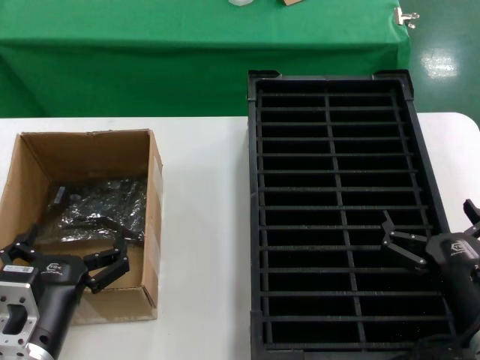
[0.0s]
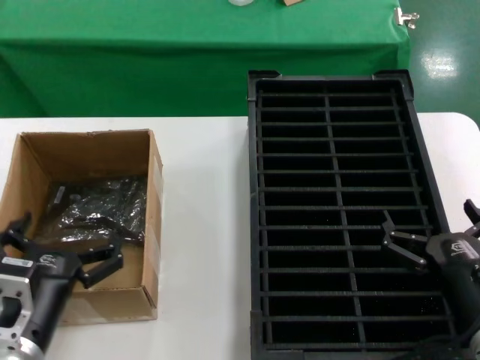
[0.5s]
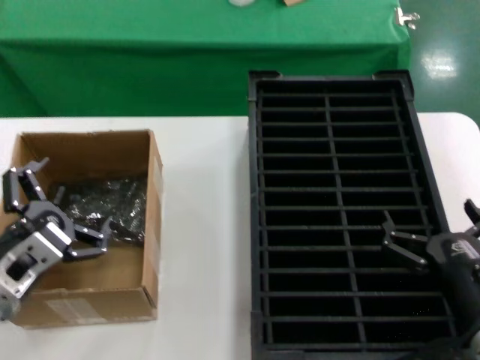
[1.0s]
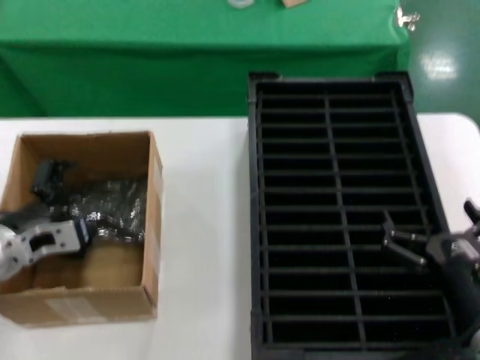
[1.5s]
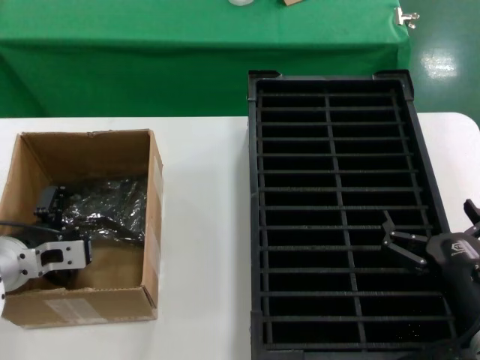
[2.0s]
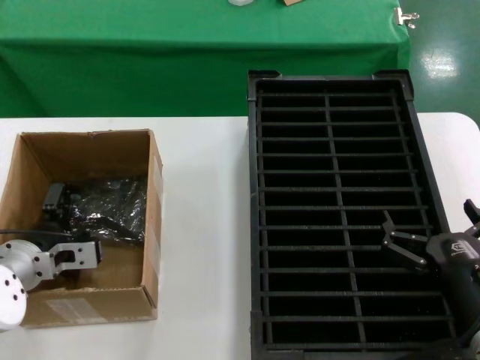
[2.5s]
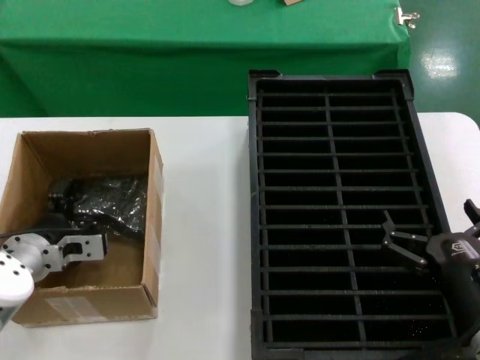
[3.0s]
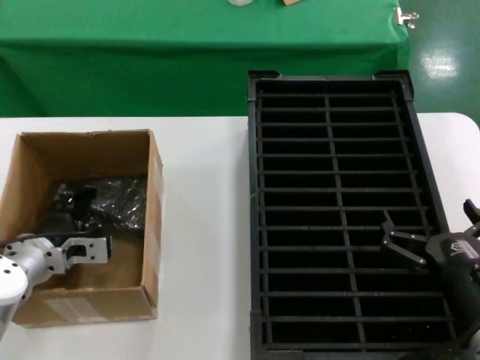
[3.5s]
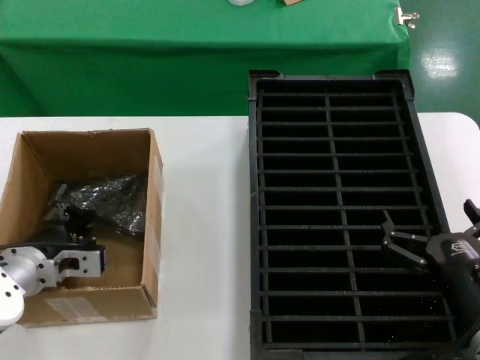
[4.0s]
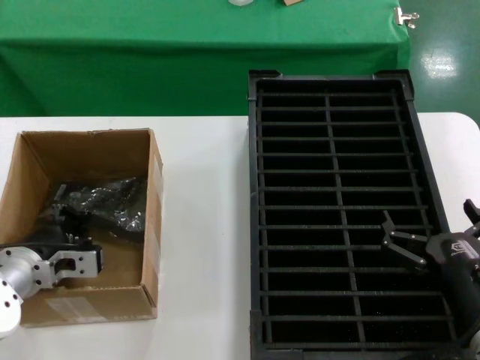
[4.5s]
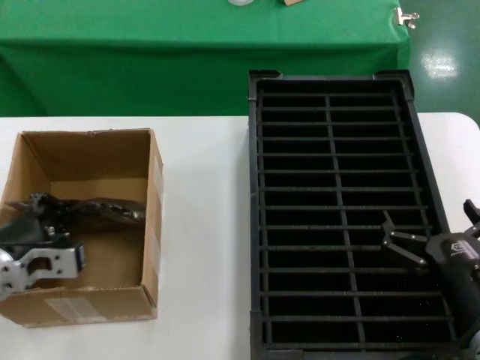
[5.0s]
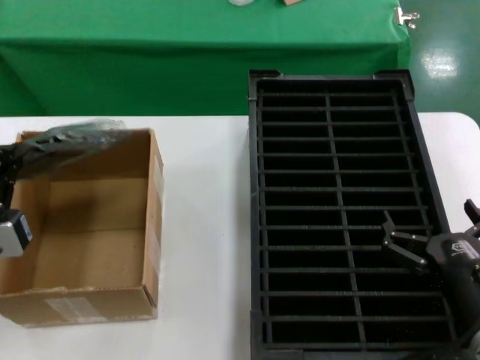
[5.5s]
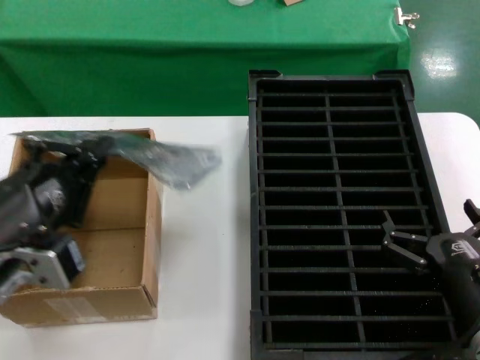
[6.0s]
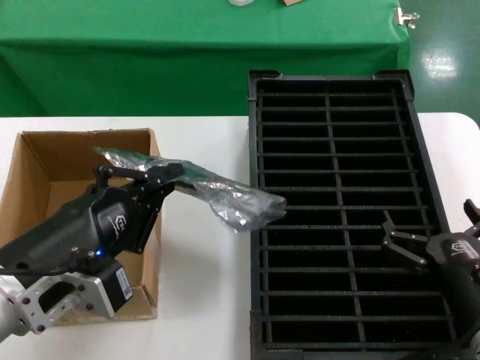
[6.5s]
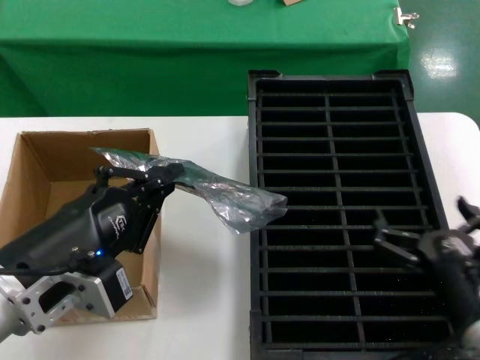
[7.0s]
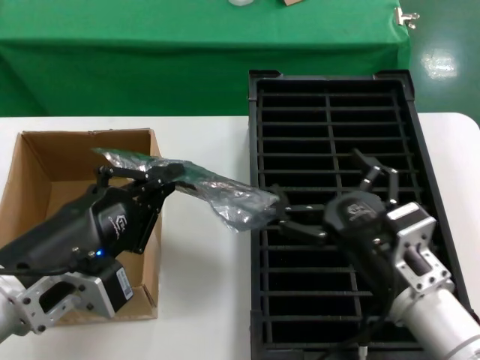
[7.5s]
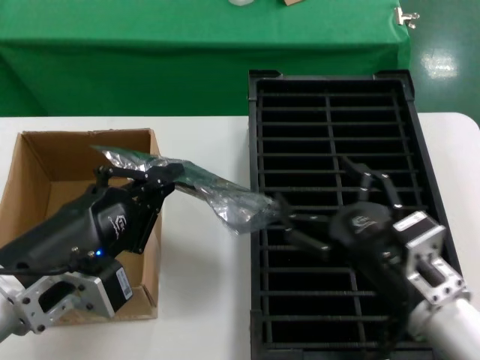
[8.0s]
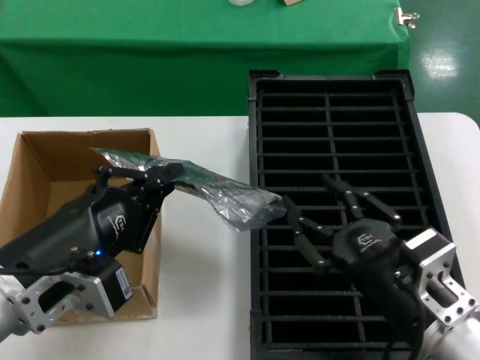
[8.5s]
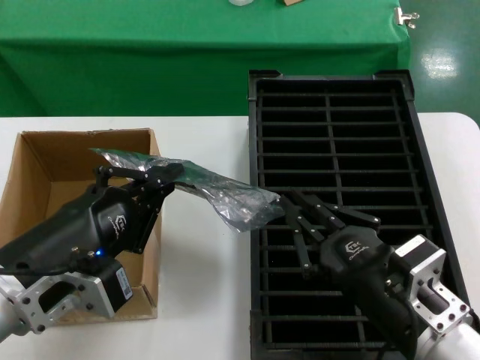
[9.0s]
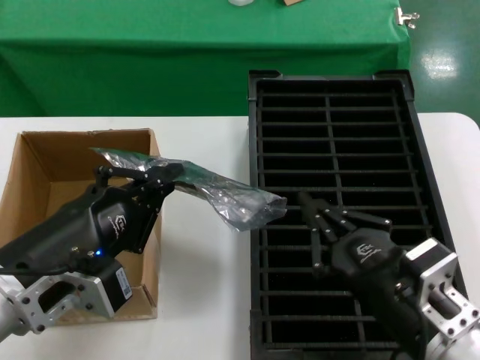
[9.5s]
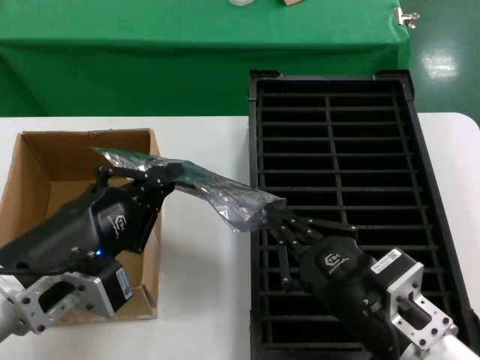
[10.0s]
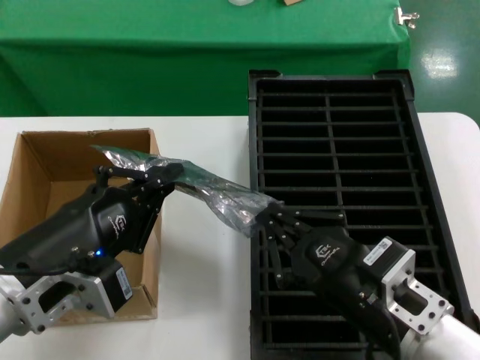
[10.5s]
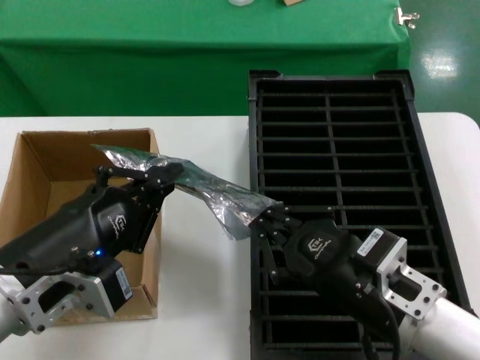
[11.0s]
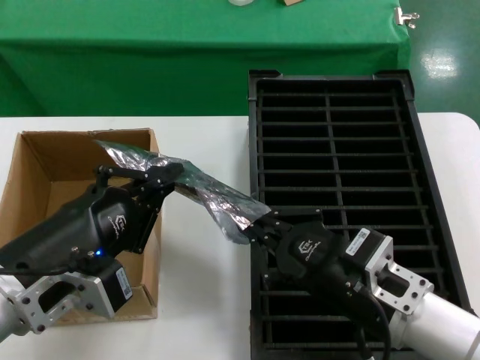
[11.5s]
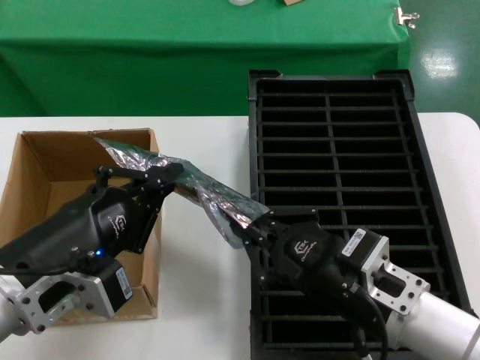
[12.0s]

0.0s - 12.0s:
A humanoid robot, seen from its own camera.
Task of the whole recording: take out graphics card from box remove packaging put into black container.
Step, 0.0s - 4.5s: Grasp the bag.
Step, 5.0s - 6.0s: Lift the bag.
0.0s - 2.0s: The left hand travels forward and to the left by some 20 cm.
2.0s - 4.0s: The hands stay close to where they were, moving slightly.
4.0s - 6.0s: The left hand travels backward and upward by roughly 25 cm.
6.0s - 8.0s: The right hand travels to the left and upward by roughly 10 cm.
8.0s - 10.0s: The hands move only a little.
10.0s - 12.0s: The right hand is displaced forward by approximately 5 cm.

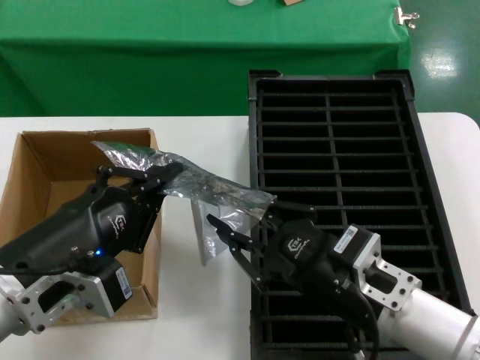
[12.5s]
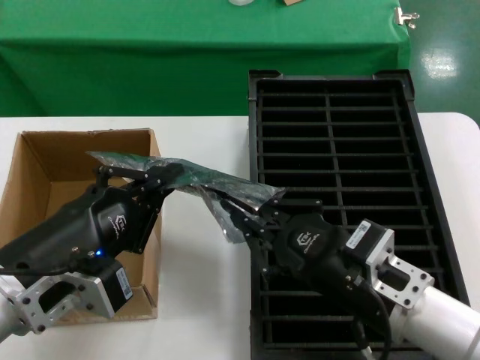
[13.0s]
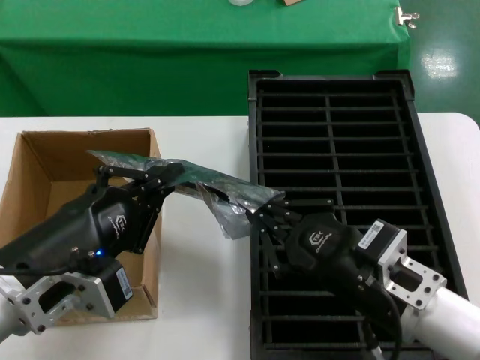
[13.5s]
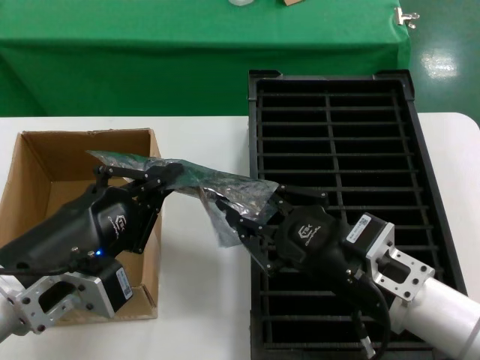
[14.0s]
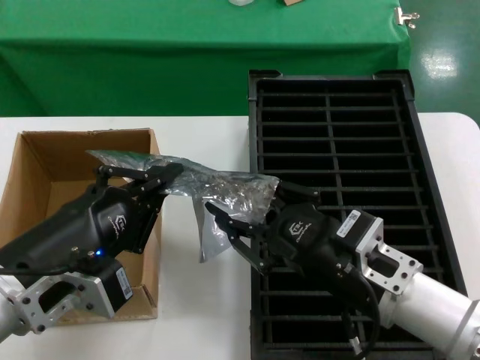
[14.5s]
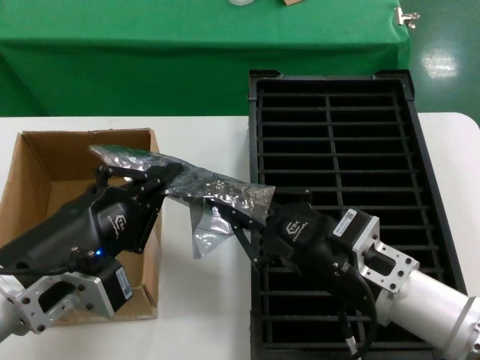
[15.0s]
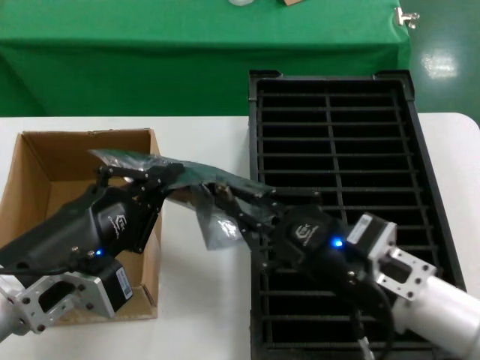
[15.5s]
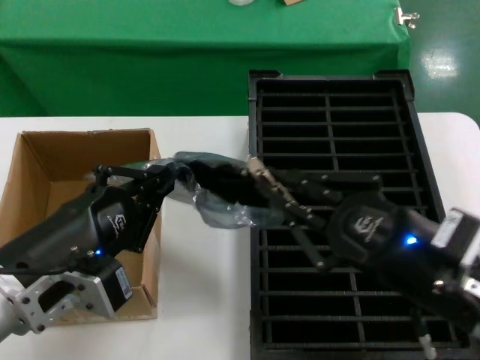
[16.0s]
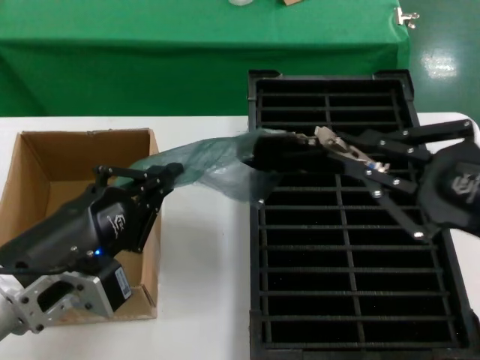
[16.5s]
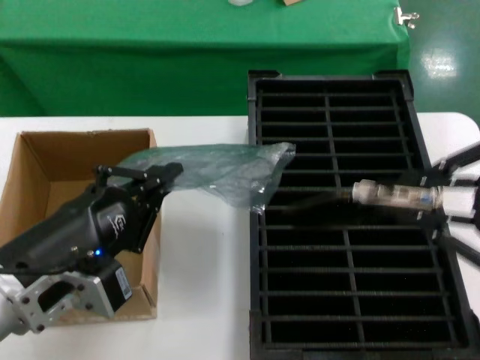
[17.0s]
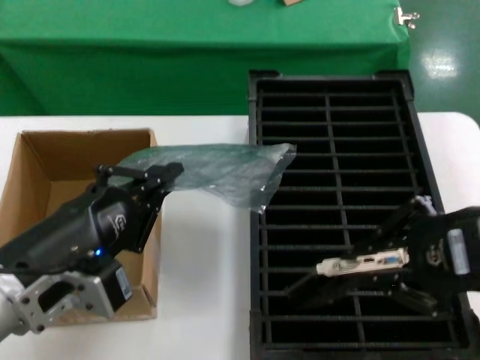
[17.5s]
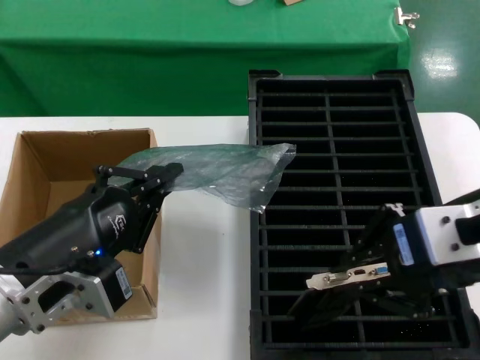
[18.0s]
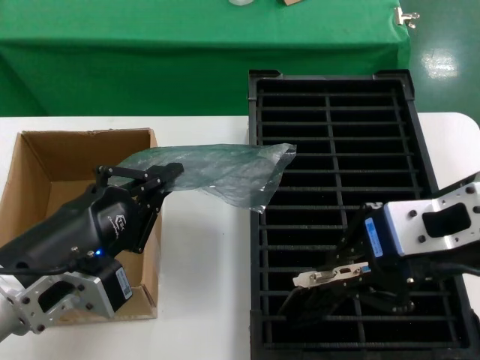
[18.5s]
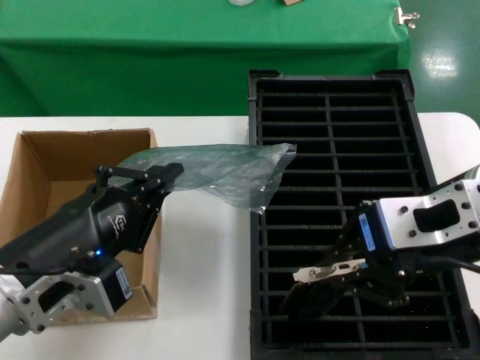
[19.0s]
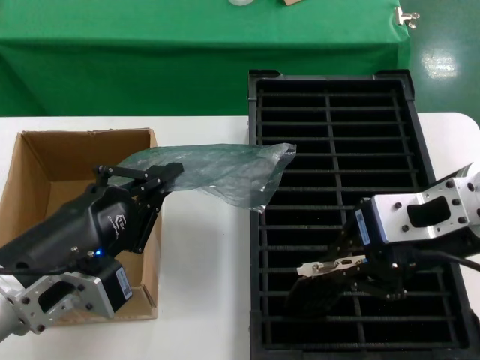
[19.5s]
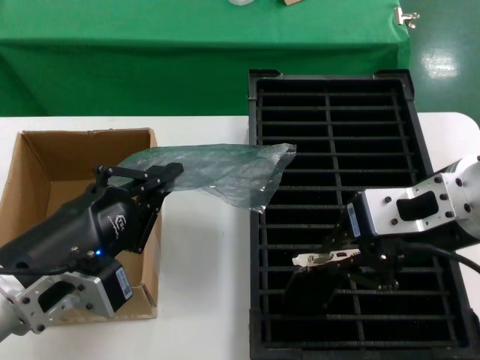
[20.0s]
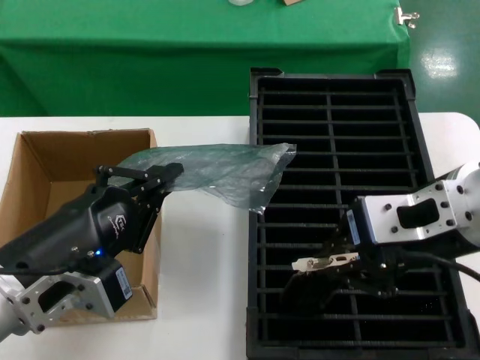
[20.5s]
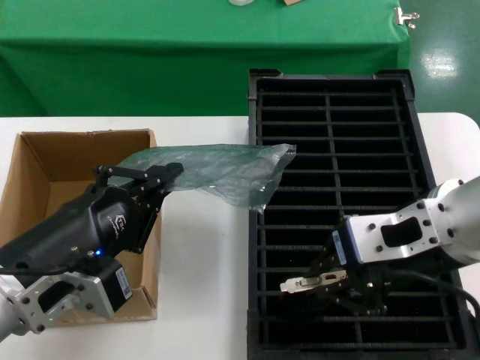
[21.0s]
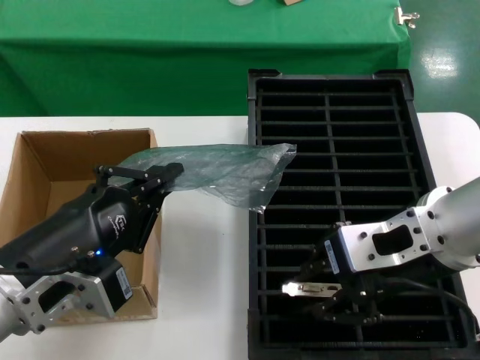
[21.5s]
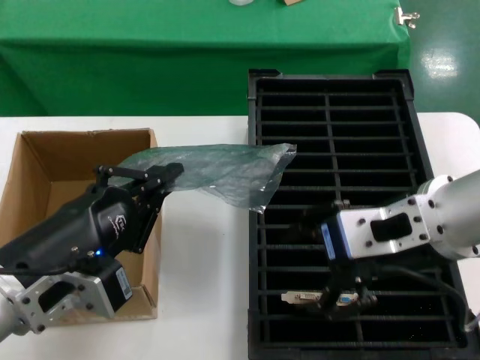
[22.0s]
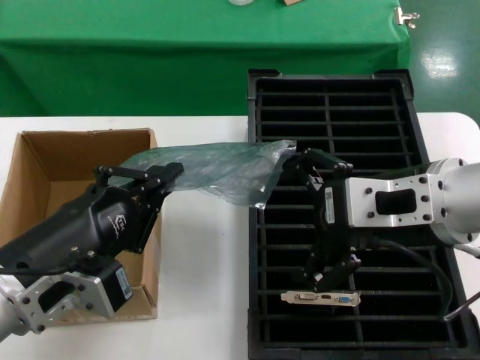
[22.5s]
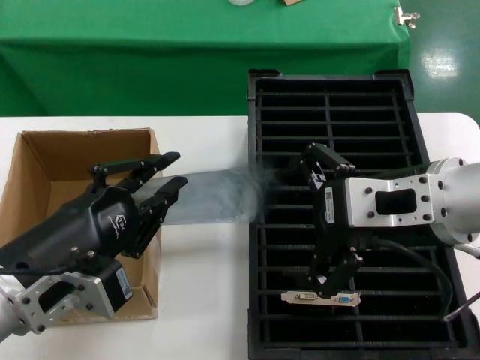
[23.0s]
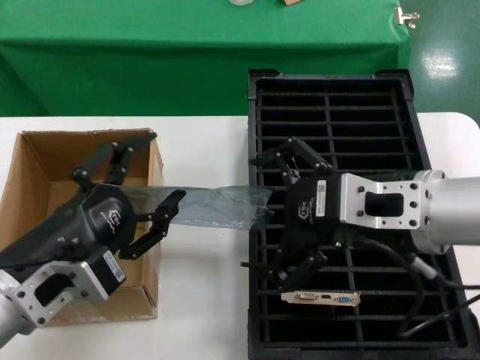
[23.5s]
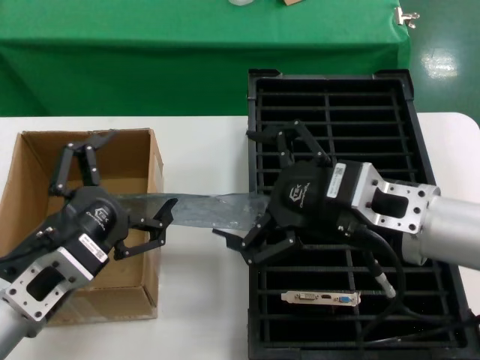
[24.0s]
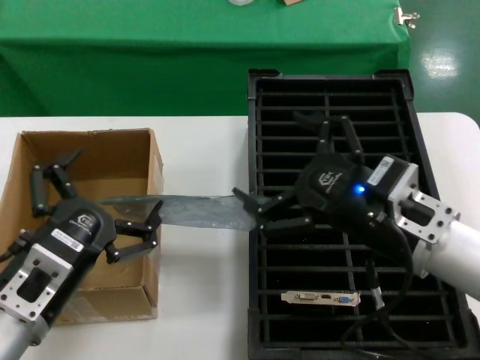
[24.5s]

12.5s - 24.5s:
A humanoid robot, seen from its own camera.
Task of the whole recording: take out graphics card from box remove packaging put into black container.
Step, 12.5s - 16.5s: Take out the hard disk of the bag.
Step, 17.0s - 21.5s: Place the hard disk in the hard disk enclosure.
Step, 22.0s - 24.5s: Place the down the bag.
12.5s - 14.5s: The hands move only a little.
14.5s - 16.5s: The right hand travels upward, to the right and backward by approximately 20 cm.
16.5s - 18.5s: The right hand shifts approximately 15 cm to the left, upward and forward.
18.5s - 22.5s: The hands move only a little.
22.5s - 24.5s: The left hand shifts about 5 cm downward; the right hand moves downward, roughly 10 cm.

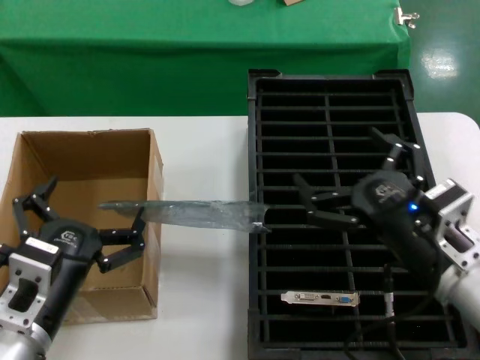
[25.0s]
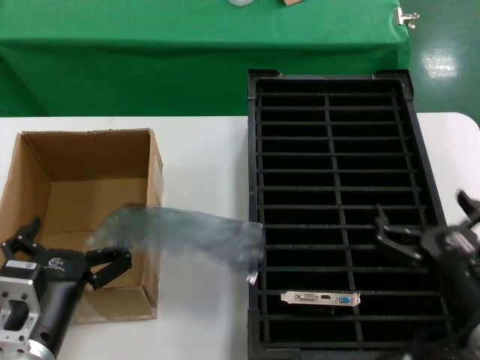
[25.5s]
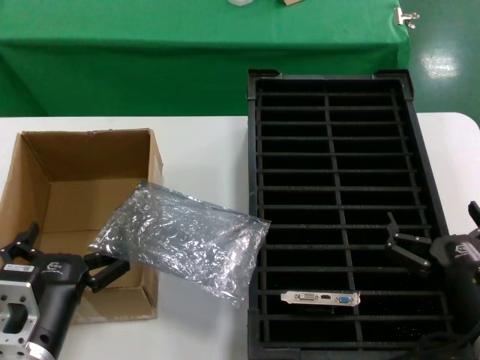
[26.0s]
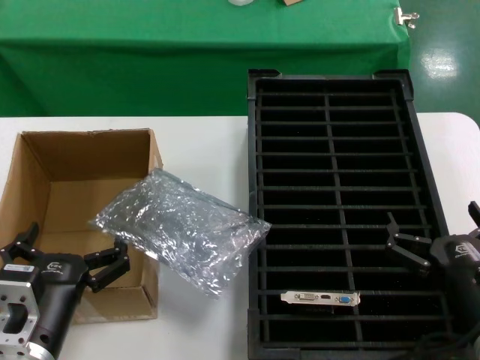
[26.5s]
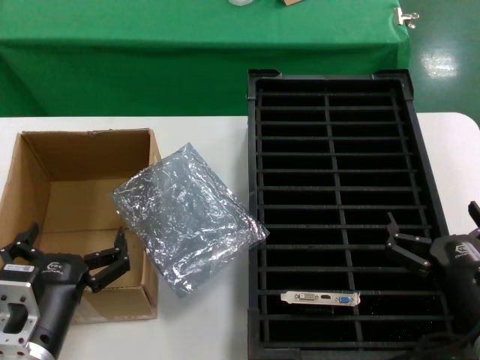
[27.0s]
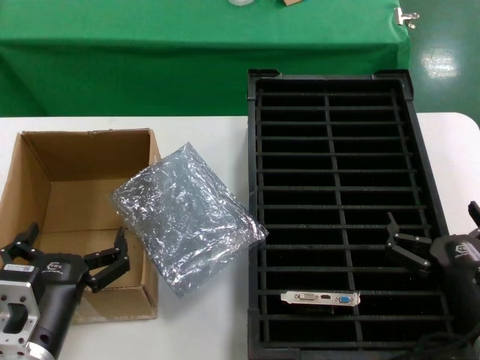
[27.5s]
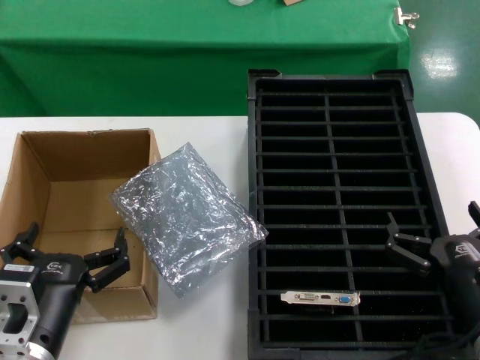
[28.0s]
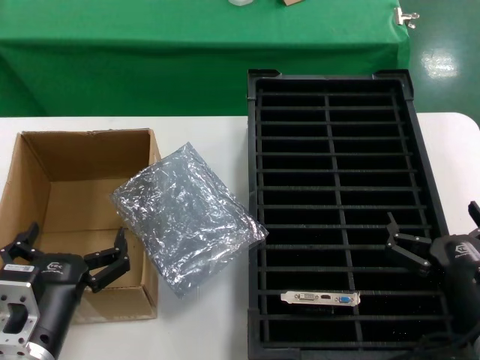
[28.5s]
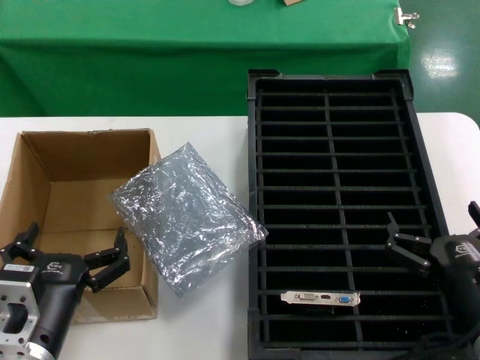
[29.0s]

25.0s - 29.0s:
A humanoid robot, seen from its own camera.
Task of the whole recording: take out graphics card from box remove packaging put into black container.
25.0s - 27.0s: The right hand shifts some 10 cm downward.
27.0s - 29.0s: Neither hand changes place.
